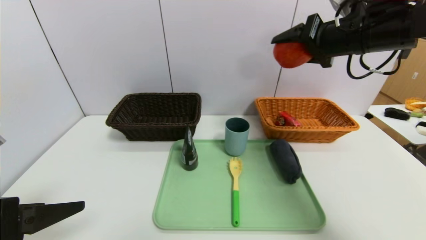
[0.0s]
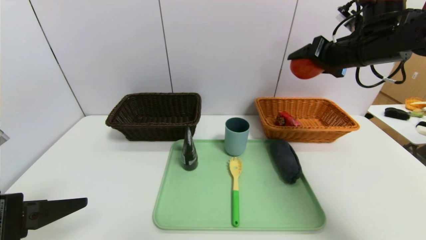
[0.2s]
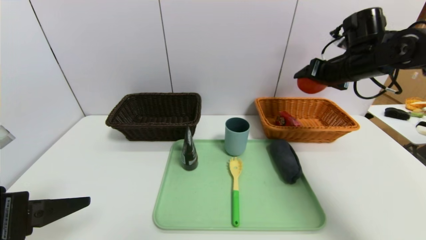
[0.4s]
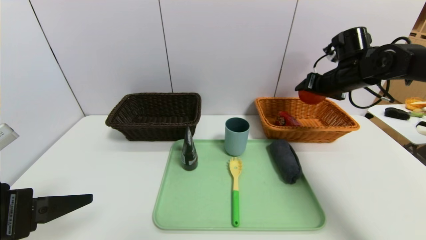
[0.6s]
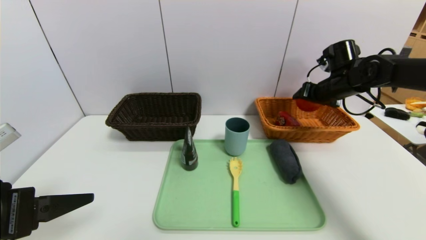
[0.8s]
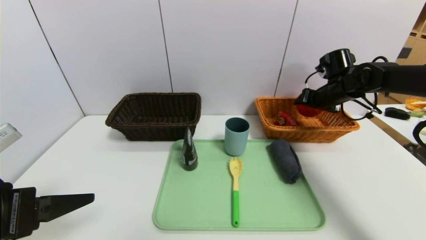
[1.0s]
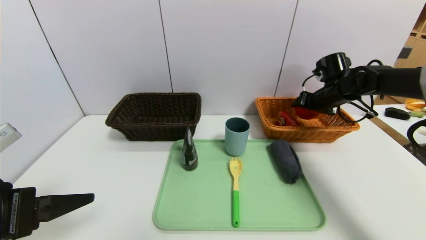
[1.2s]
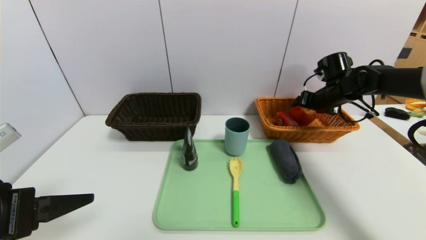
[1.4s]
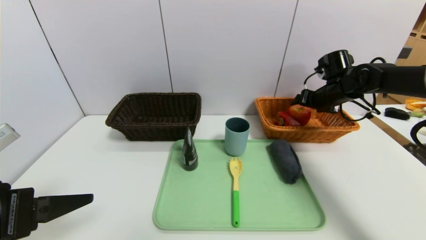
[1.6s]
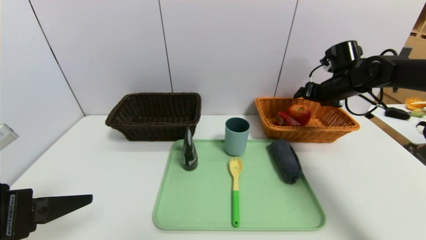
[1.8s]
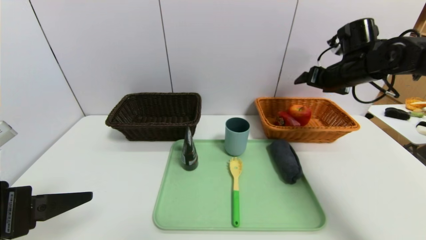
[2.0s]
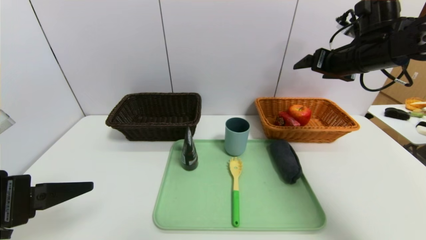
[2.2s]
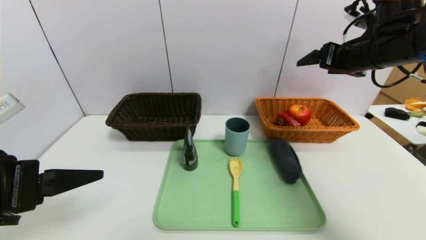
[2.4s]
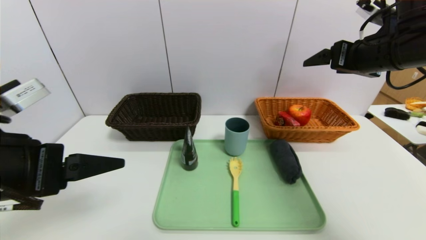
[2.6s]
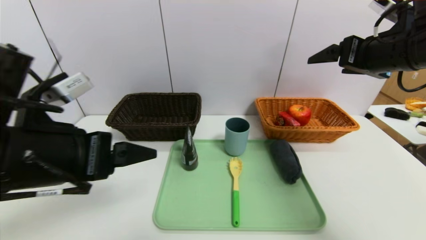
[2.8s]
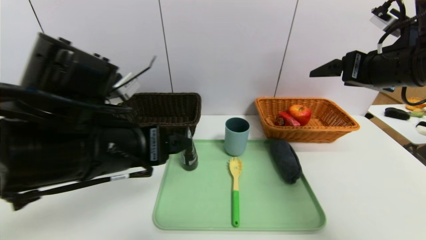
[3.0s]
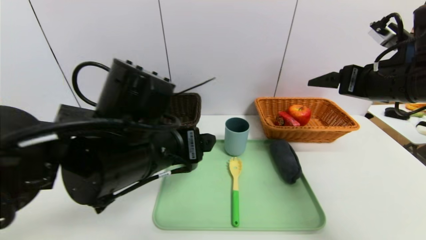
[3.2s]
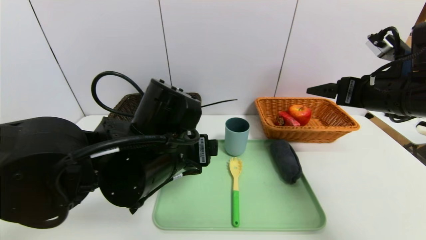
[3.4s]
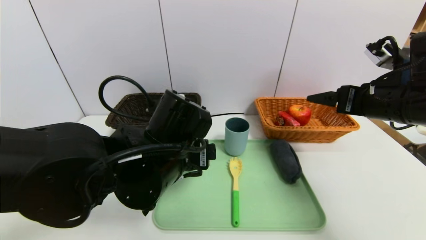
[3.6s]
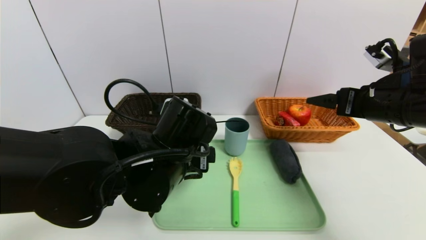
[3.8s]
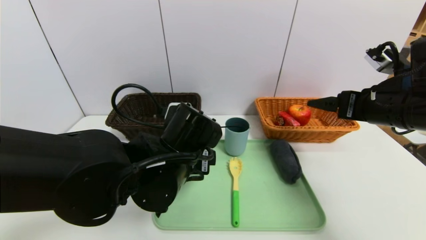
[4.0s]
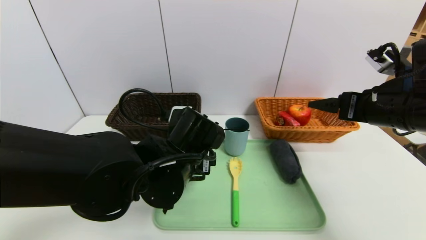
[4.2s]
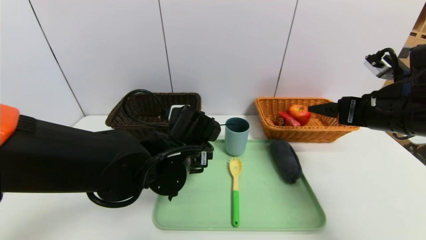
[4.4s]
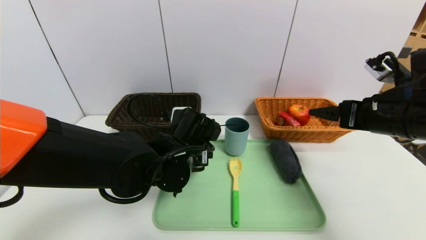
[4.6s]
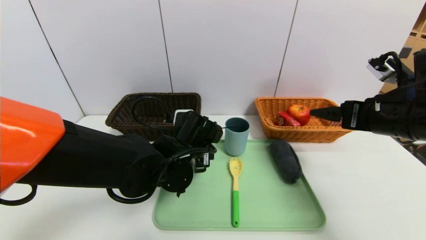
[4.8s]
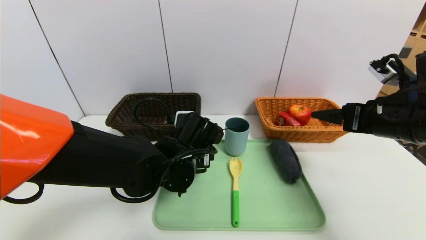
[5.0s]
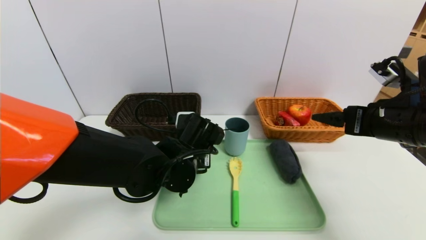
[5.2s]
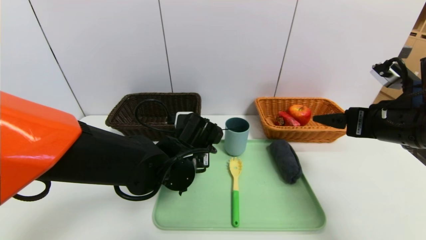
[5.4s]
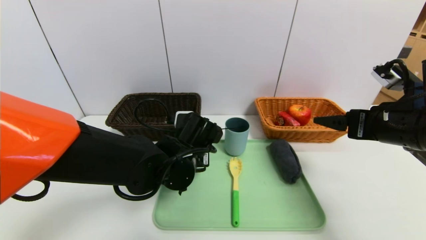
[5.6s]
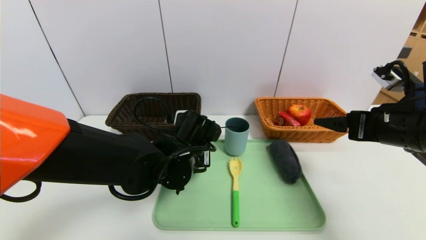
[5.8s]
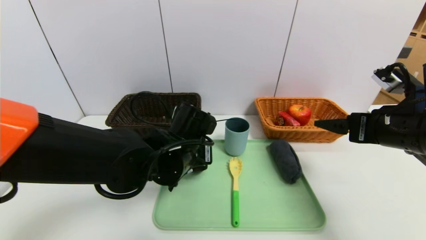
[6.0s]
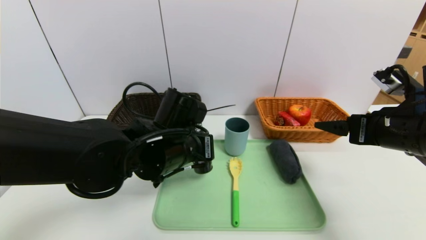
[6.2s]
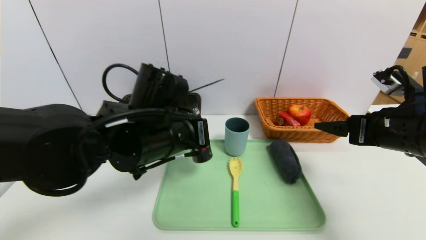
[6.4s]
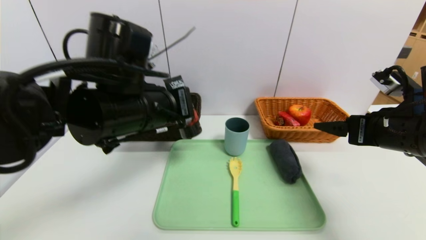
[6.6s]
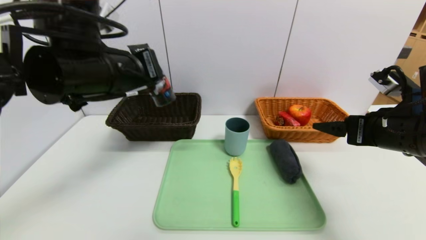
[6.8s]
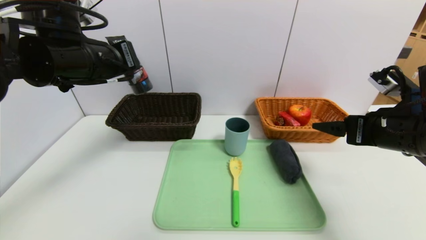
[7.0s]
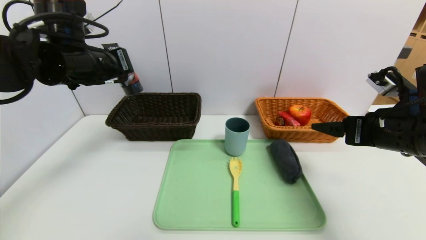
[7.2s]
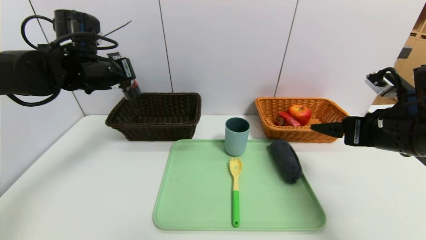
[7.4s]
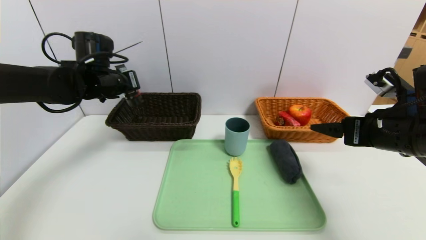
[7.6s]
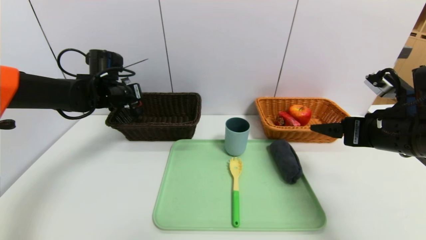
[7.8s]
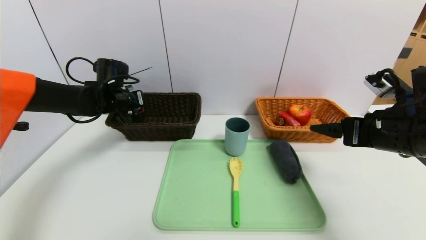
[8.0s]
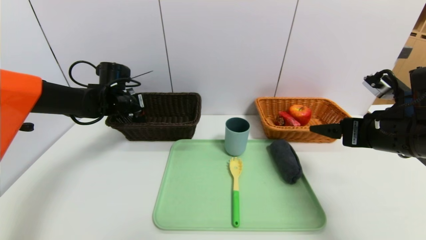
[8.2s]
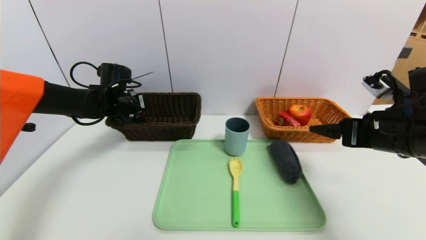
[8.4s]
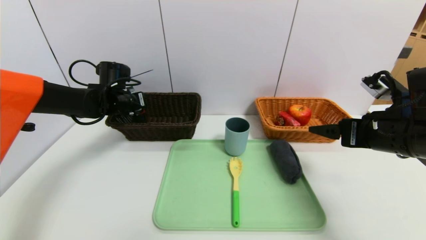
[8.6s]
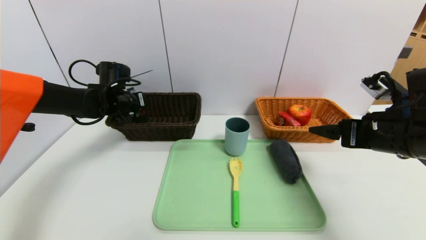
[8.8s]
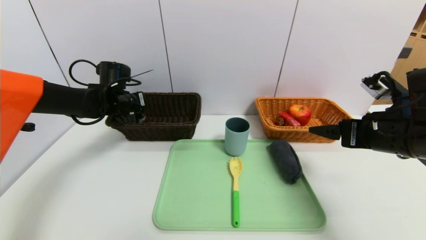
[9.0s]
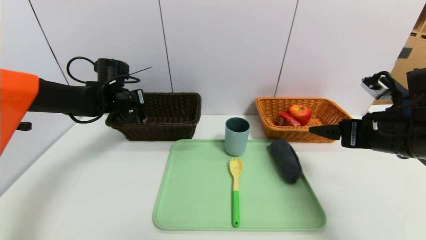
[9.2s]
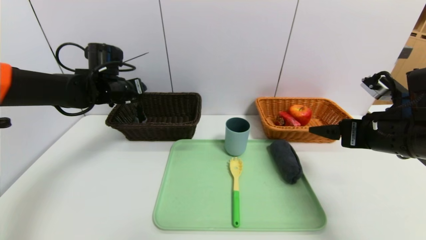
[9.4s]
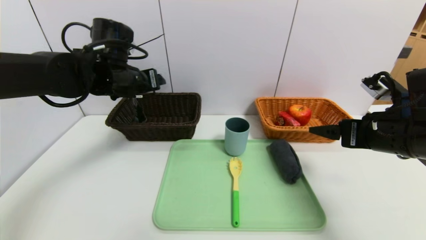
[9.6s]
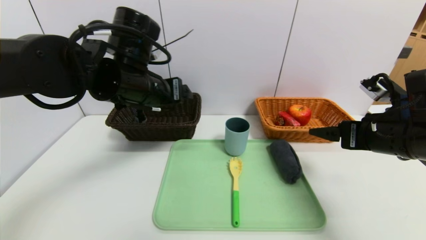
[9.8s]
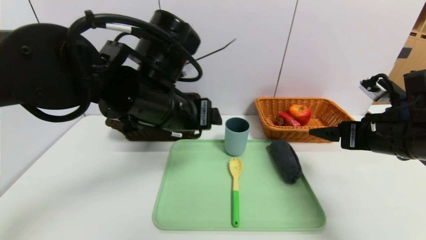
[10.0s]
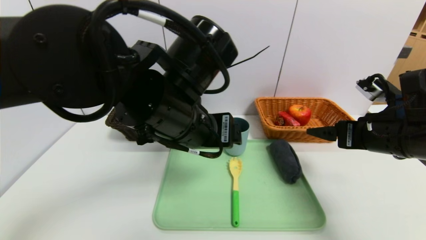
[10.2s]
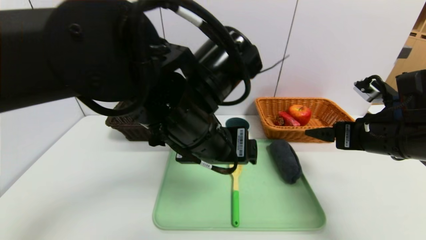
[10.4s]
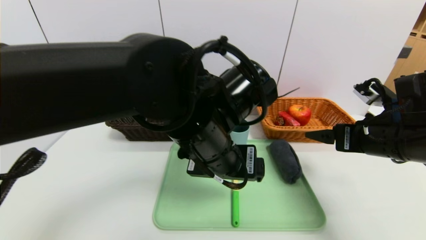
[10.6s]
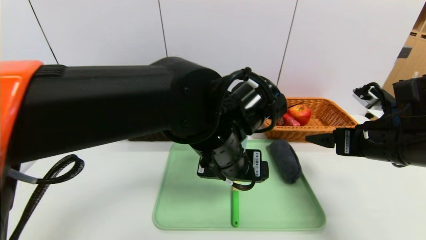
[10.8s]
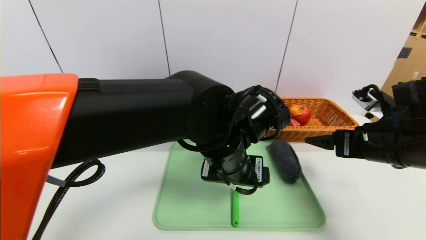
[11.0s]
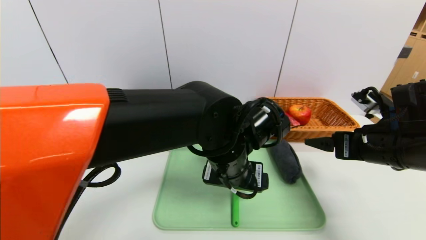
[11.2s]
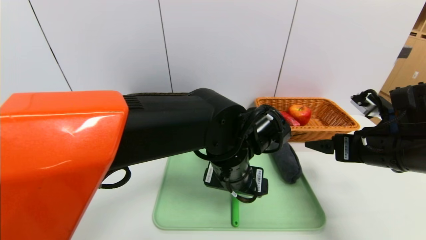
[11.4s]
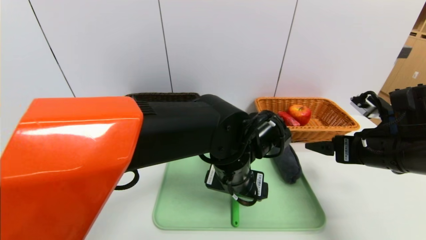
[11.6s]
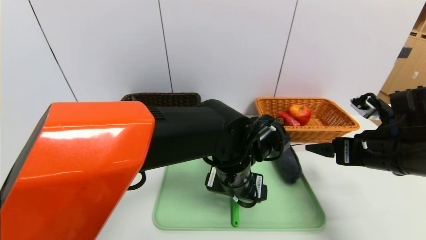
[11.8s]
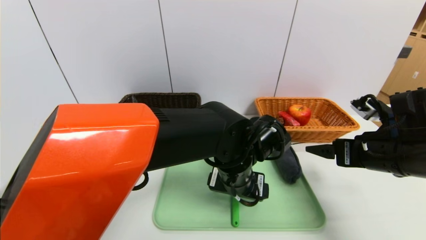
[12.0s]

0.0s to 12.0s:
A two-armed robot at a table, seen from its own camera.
Task of the whole recording: place the food in the right basket with the right gripper, and place the non food items in the left basket with the left gripper.
Step, 0.0s to 2.2s: Grasp the apple and put it in the right basket.
Step, 2.4s to 9.4s: Grasp the hard cleanser and put it in the left basket.
0.0s to 1.6s: The right gripper moves downward, forward and to the right, approximately 20 cm.
1.6s to 3.0s: The left gripper is displaced to the right and forward by about 15 cm, while the right gripper goes some 20 cm backward and upward.
3.0s to 4.4s: The left gripper is displaced downward, forward and to the right by some 15 cm. The right gripper is displaced downward by roughly 5 cm.
4.4s to 6.0s: The left gripper closes.
6.0s to 7.6s: The left gripper travels to the left, forward and upward by roughly 25 cm.
7.6s to 9.0s: The left gripper goes approximately 5 cm downward.
9.0s to 10.4s: The left gripper goes roughly 30 cm backward and to the right, and opens up.
10.4s to 12.0s: The left gripper shifts about 15 cm downward and to the right.

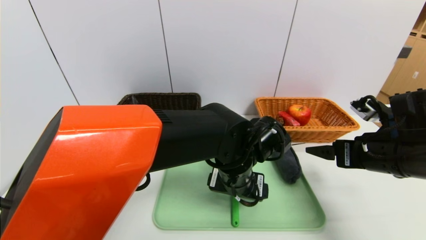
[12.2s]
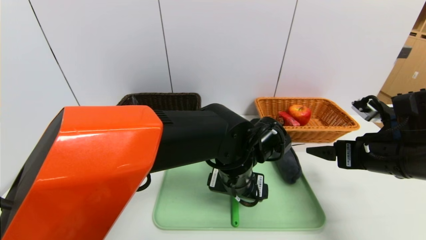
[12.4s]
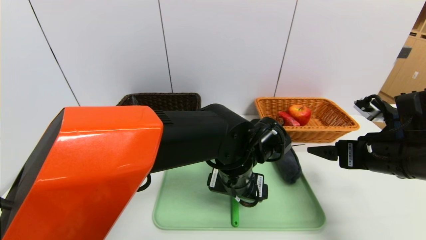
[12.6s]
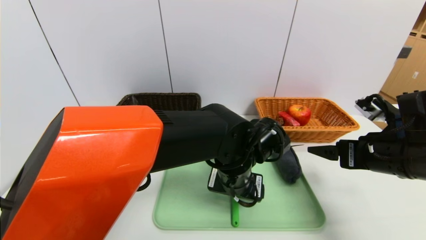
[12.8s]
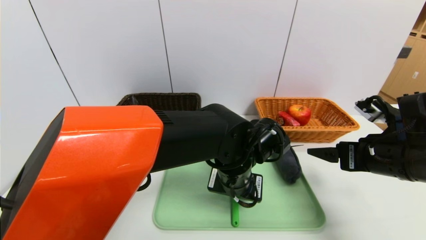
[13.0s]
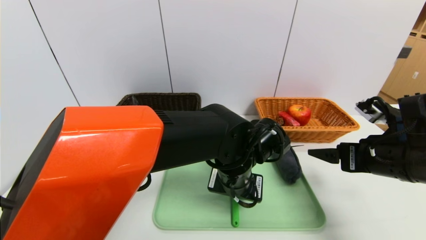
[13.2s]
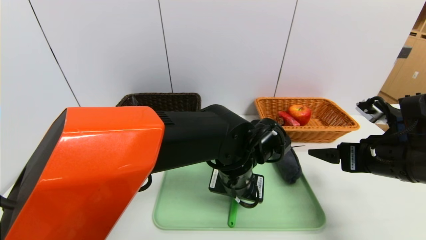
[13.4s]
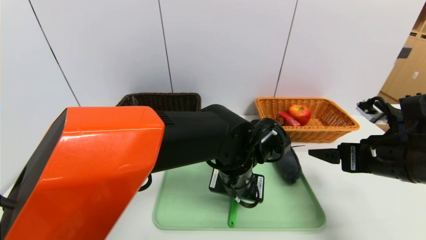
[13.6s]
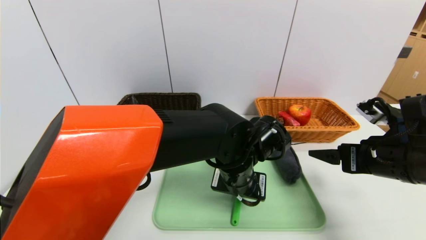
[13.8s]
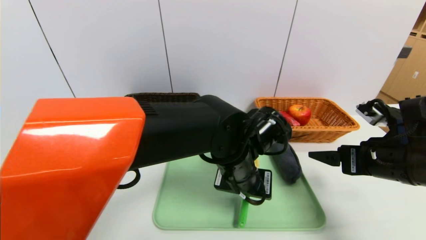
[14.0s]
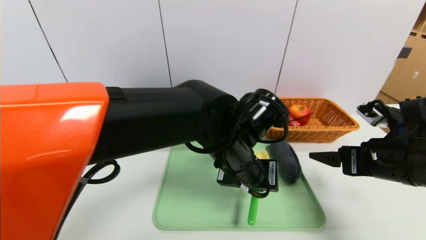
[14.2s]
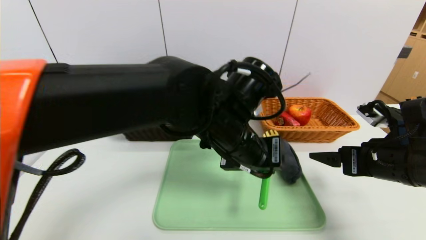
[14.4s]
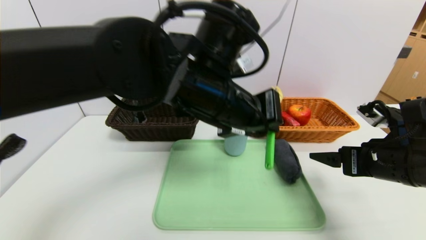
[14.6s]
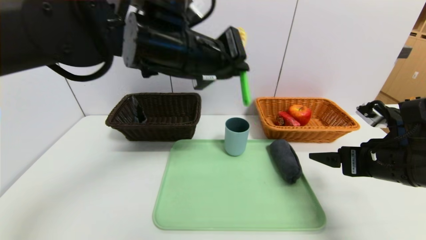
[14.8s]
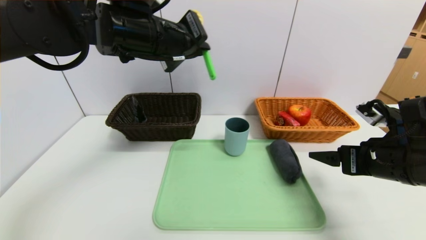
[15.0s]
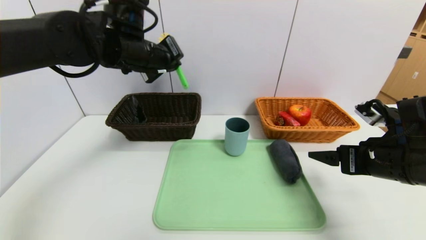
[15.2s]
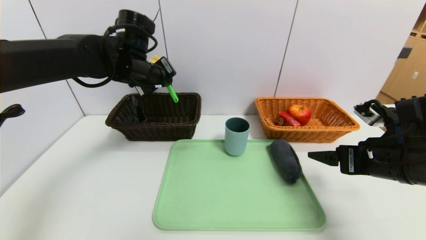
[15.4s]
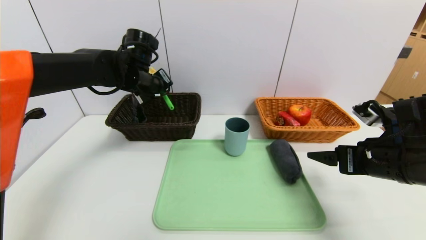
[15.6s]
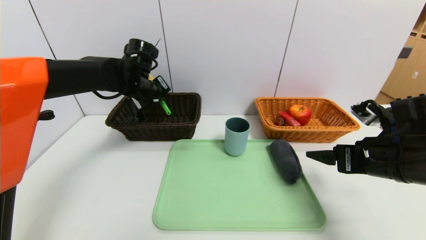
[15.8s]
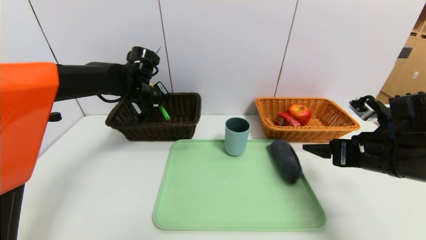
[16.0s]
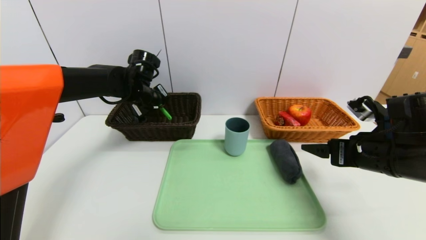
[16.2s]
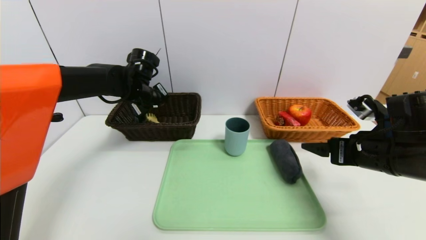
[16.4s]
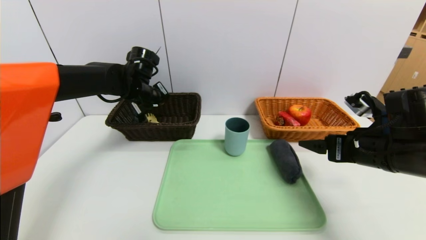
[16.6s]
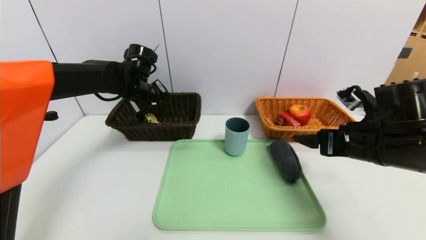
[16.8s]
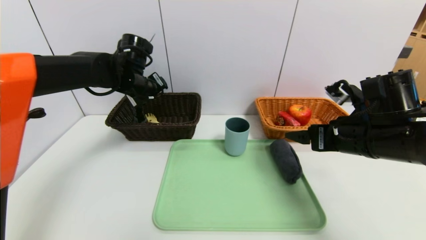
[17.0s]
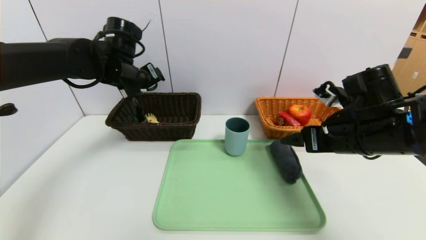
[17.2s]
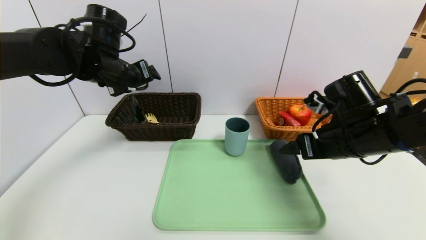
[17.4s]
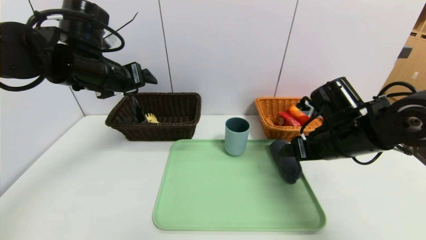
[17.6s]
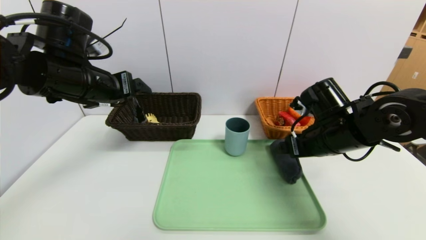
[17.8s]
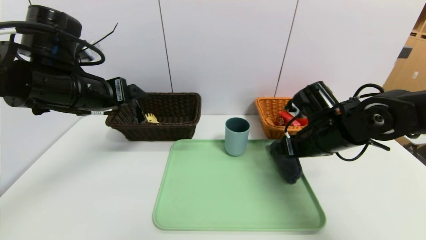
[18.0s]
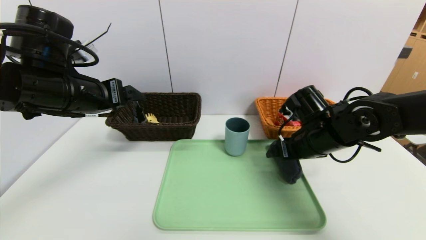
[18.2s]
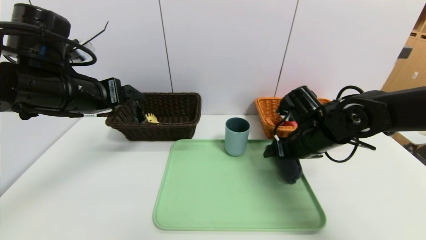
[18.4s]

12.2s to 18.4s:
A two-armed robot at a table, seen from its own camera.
Task of the whole recording: place the food in the right basket with the right gripper, and place the non food items in the left basket with the left gripper.
Step, 12.2s to 16.8s: Grasp the spoon and put it in the left basket.
12.2s to 13.8s: The left gripper closes.
13.8s to 15.4s: The left gripper moves to the left, forward and upward, roughly 25 cm.
15.4s to 16.8s: The left gripper travels downward by roughly 5 cm, and opens its fingers.
16.8s to 18.4s: The left gripper heads backward, covering some 15 cm. The right gripper travels forward and to the left by about 10 cm.
